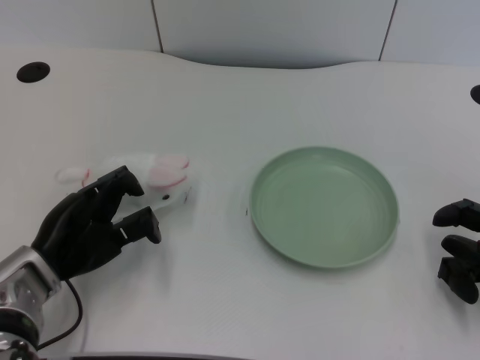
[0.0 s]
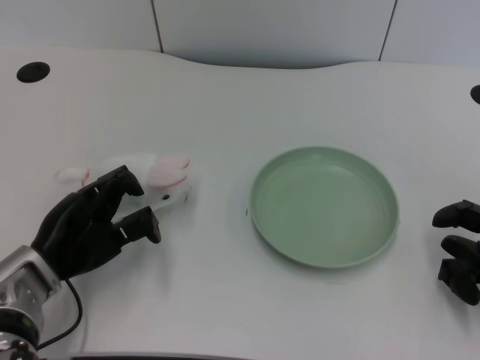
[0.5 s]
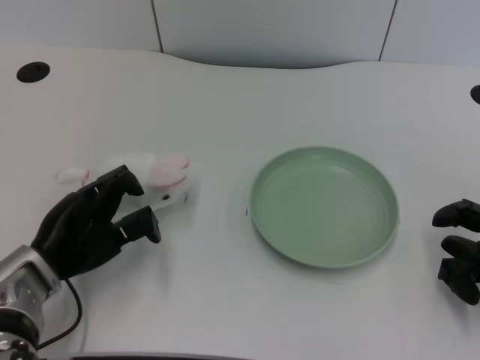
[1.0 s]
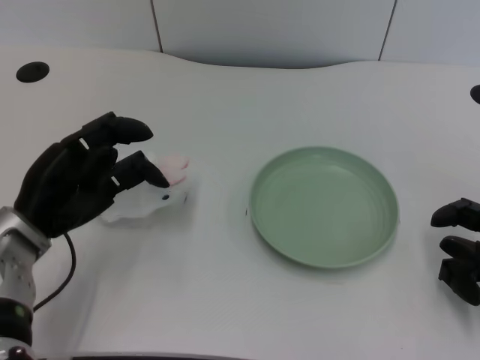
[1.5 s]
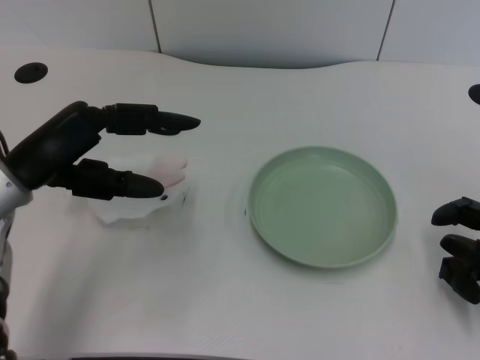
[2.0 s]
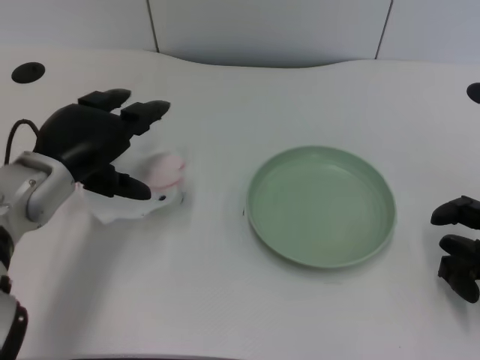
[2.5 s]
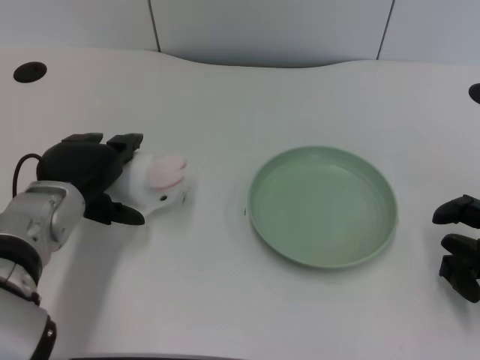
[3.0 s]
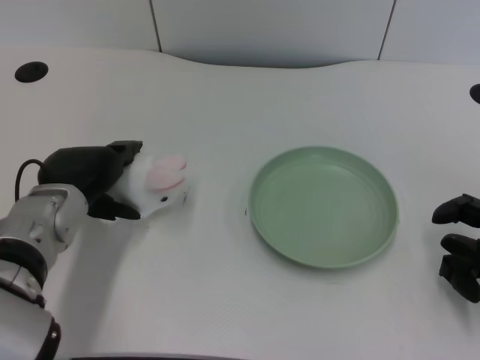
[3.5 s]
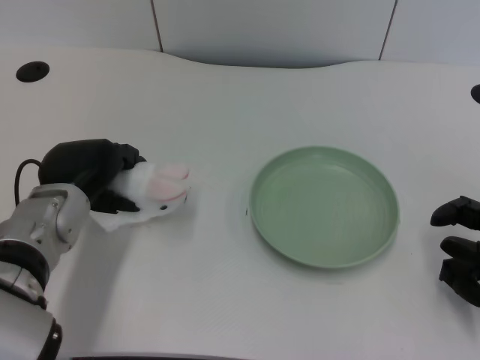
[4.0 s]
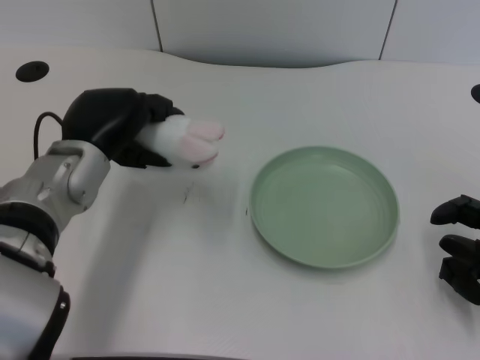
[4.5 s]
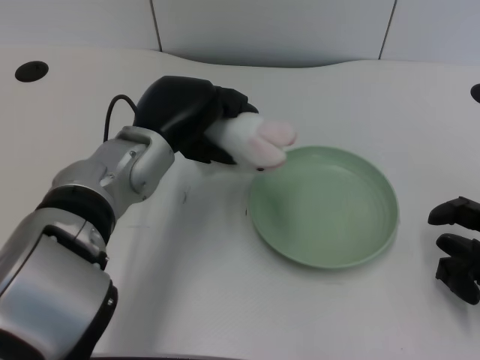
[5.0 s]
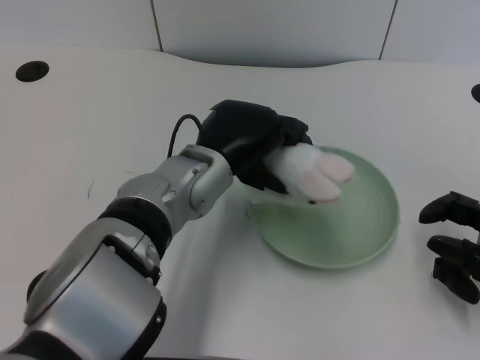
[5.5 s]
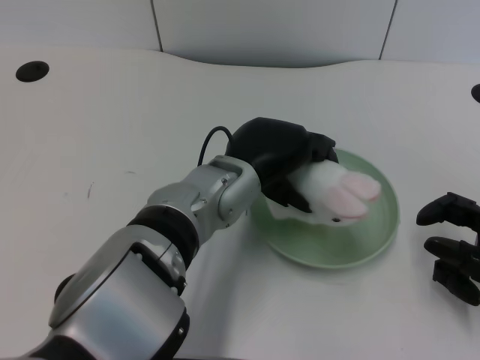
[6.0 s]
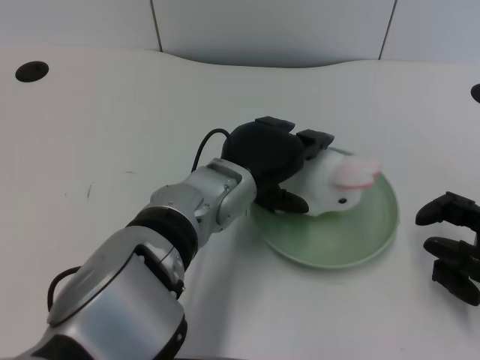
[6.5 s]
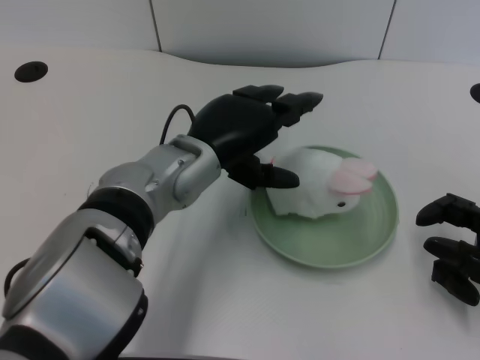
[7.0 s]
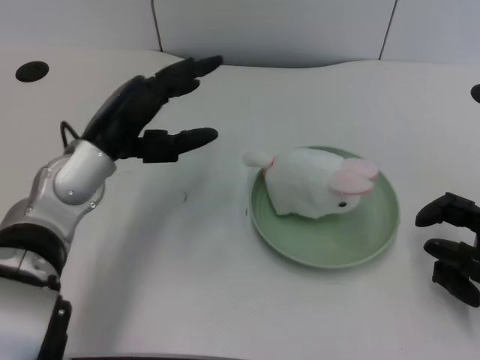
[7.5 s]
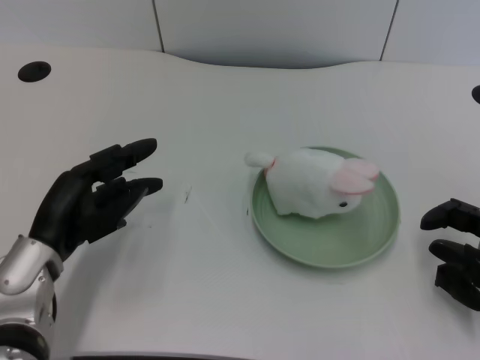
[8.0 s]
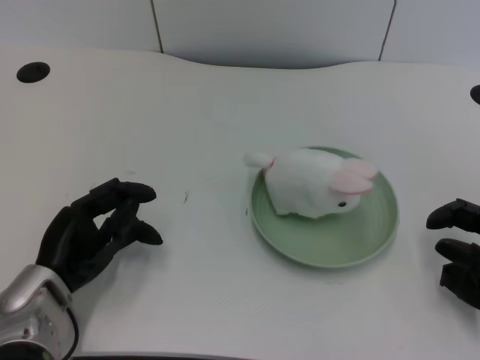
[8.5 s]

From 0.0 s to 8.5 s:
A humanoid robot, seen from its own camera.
Task of the whole recording: pick up the rabbit doll from the table and place it on the plate.
Step, from 1.5 s to 4.0 s: Grasp the rabbit doll with the left gripper.
Step, from 4.5 s to 6.5 s: Place the rabbit doll into the plate with the left gripper.
From 2.0 s to 4.0 s: The left hand moves downward, about 5 cm.
From 4.0 s to 6.5 s: The left hand heads to the right, covering roughly 15 cm.
From 6.5 s to 8.5 s: The left hand is displaced to the left and downward by some 20 cm.

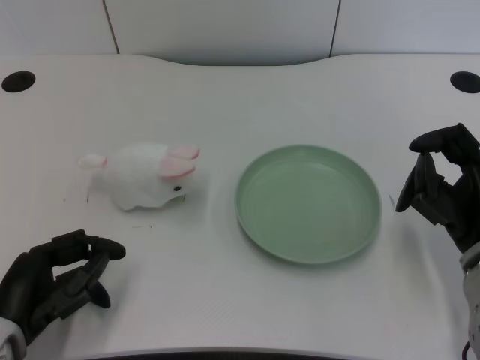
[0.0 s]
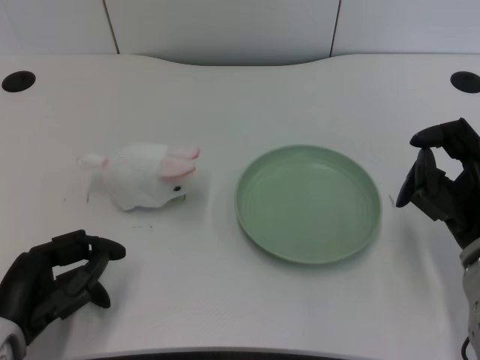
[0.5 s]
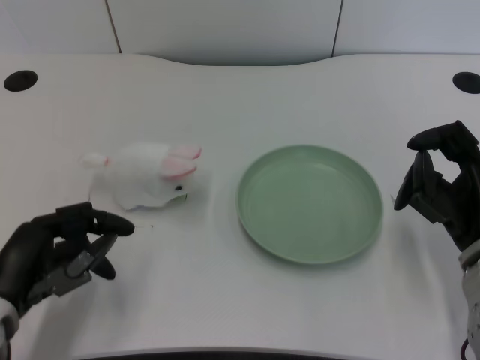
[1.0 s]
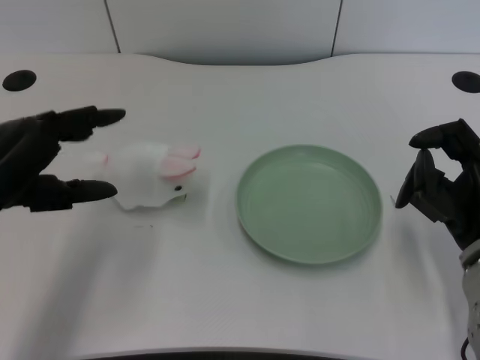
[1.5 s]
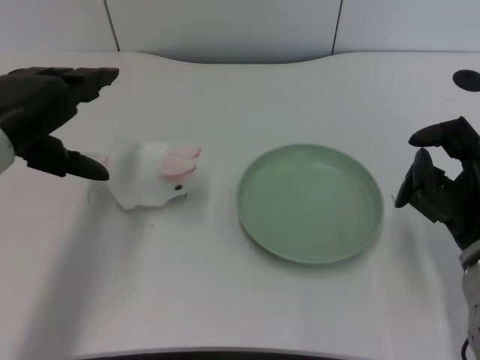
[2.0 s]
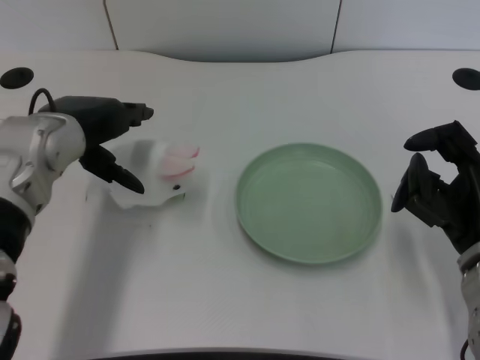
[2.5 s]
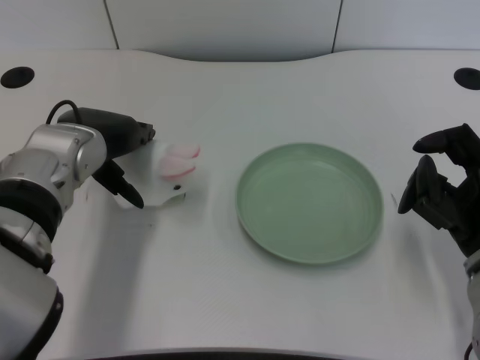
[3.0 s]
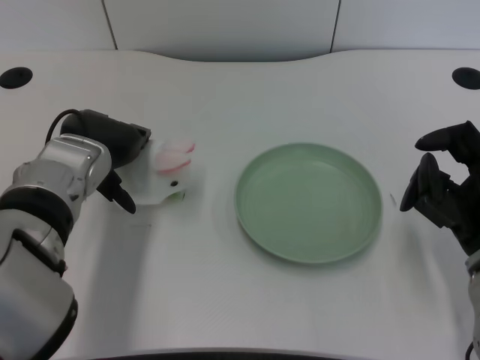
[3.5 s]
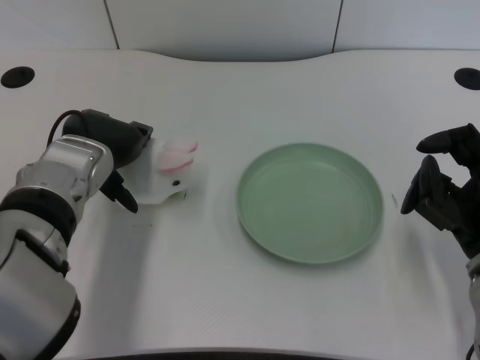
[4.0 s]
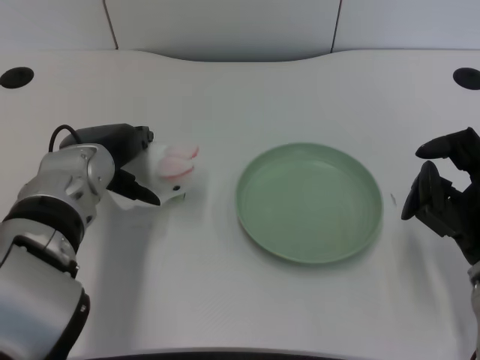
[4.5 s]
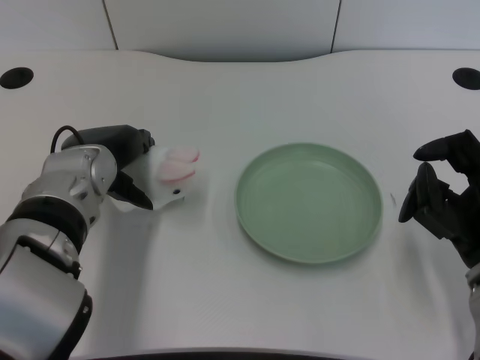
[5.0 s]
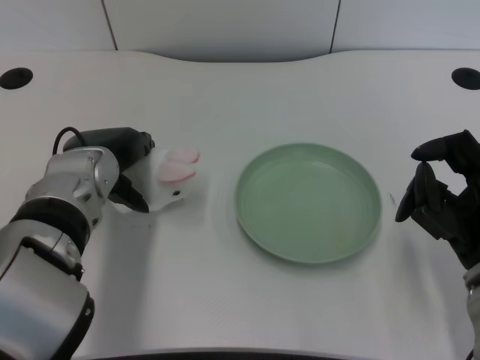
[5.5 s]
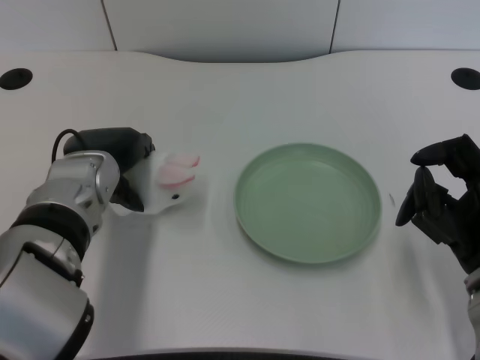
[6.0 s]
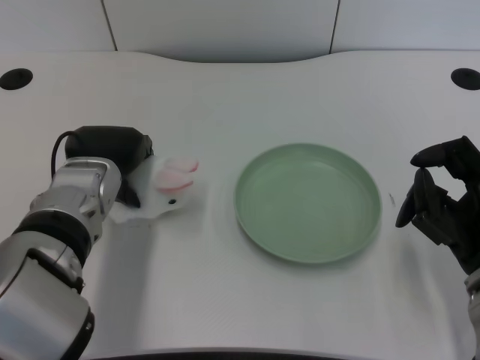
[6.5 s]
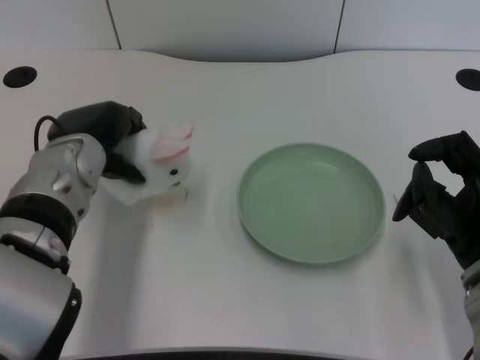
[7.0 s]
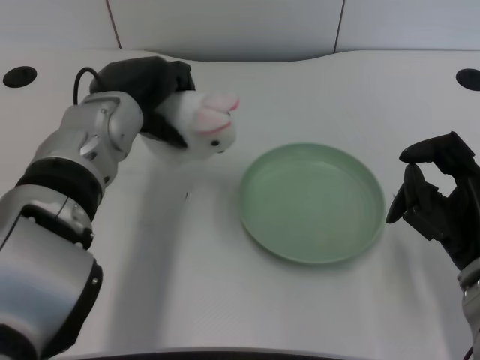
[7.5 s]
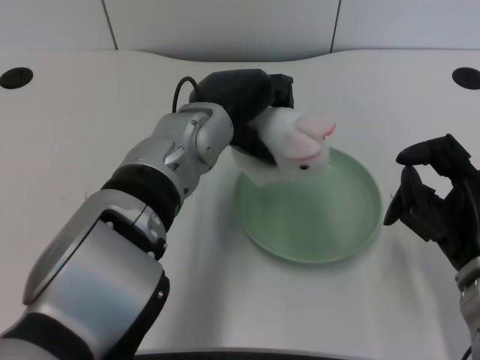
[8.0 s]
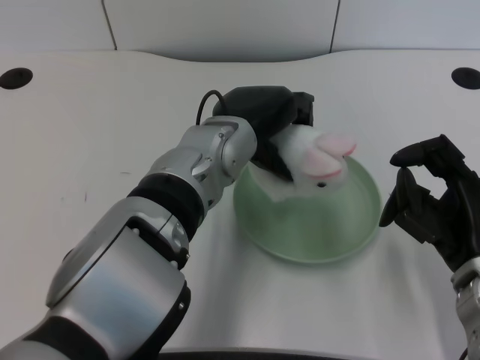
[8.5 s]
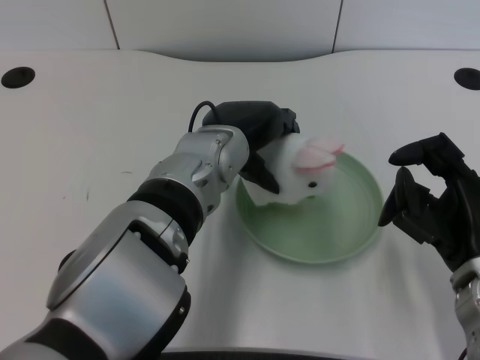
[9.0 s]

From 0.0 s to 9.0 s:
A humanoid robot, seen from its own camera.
Task of the whole recording: pick up the rabbit doll from the table and place it on the plate.
Step, from 1.0 s to 6.5 s: Grasp the rabbit doll with the left gripper.
From 2.0 s to 4.5 s: The left hand moves downward and to the right, approximately 10 cm.
From 4.5 s to 7.0 s: The hands stay close to where they were, moving slightly.
From 7.0 s to 9.0 s: The left hand shifts approximately 15 cm to the right.

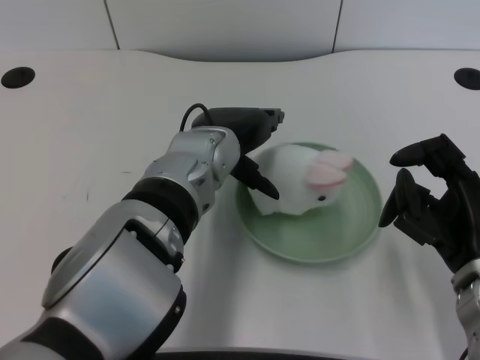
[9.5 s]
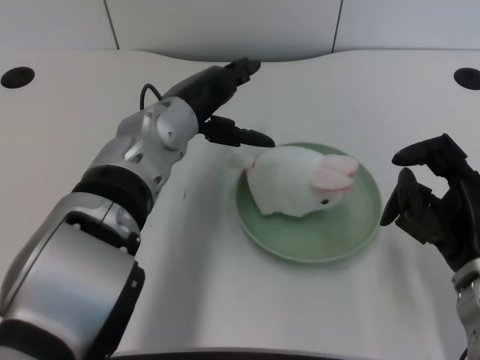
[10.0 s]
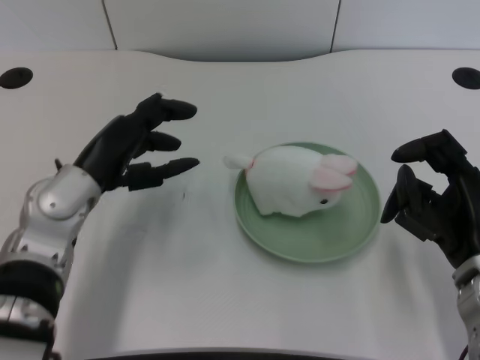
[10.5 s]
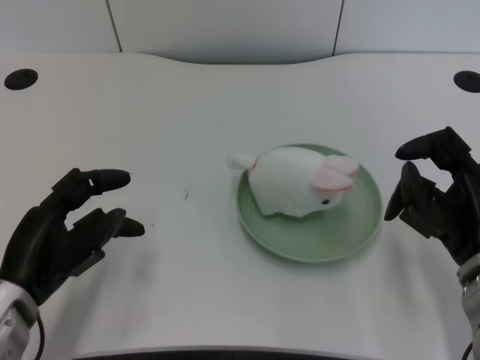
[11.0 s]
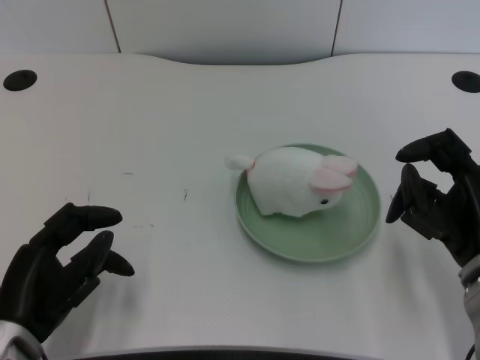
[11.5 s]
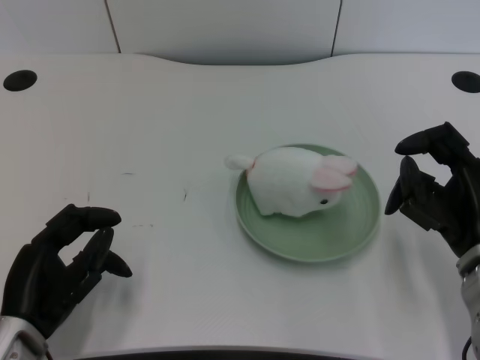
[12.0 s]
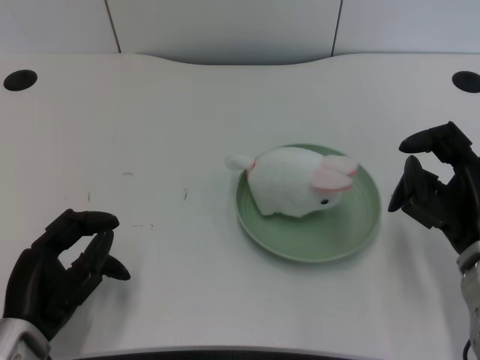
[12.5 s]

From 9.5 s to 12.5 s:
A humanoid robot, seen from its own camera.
Task of the whole recording: pick up the rabbit doll from the table and place it on the plate.
From 9.5 s to 11.0 s: The left hand shifts roughly 25 cm to the left and backward.
From 11.0 s to 12.5 s: The hands make only small movements.

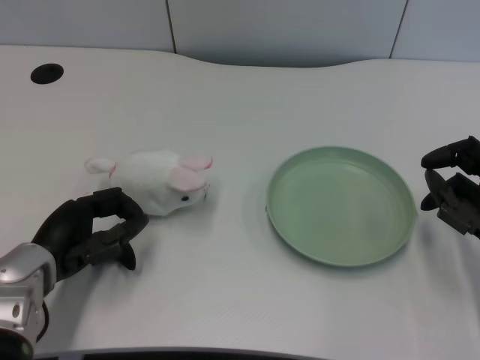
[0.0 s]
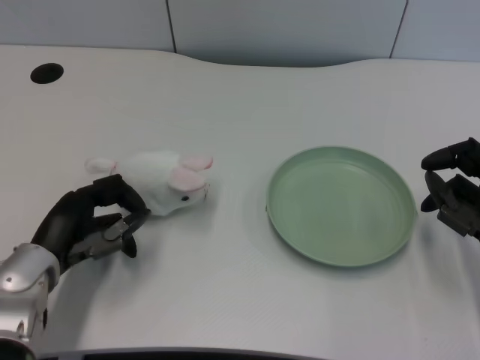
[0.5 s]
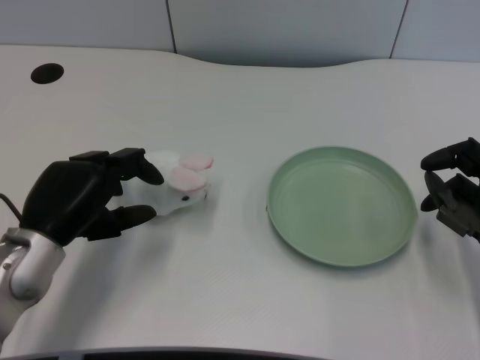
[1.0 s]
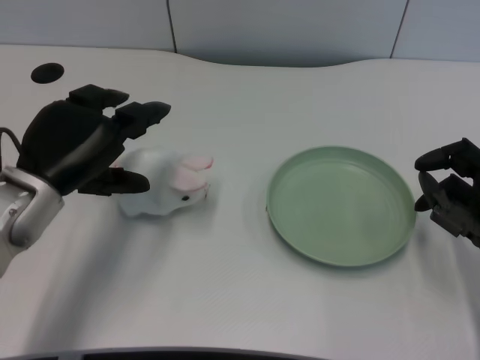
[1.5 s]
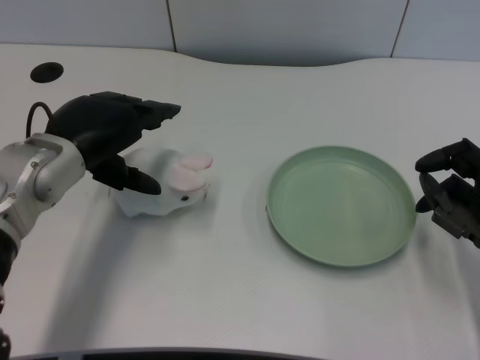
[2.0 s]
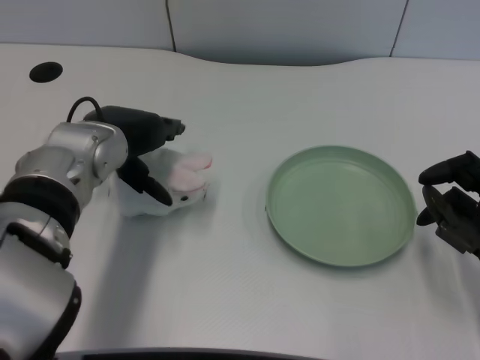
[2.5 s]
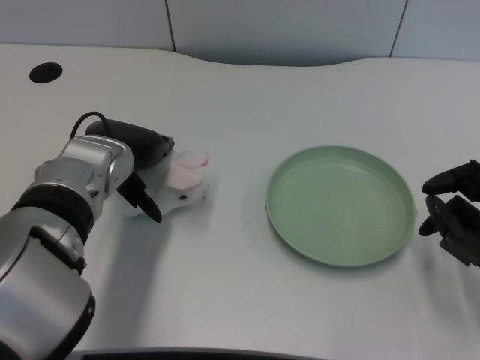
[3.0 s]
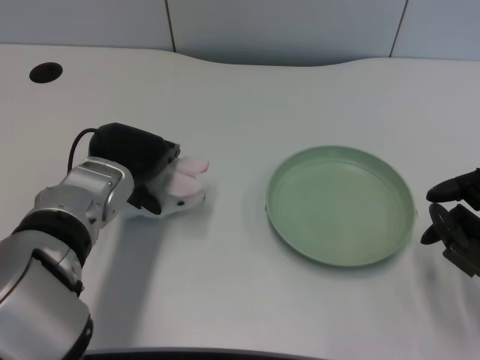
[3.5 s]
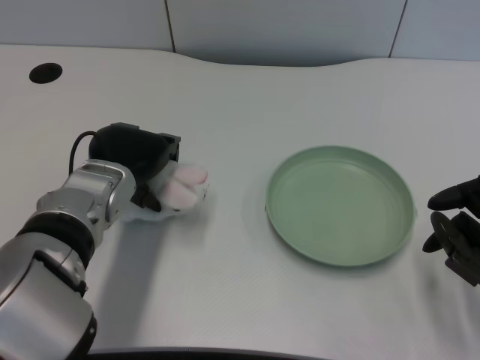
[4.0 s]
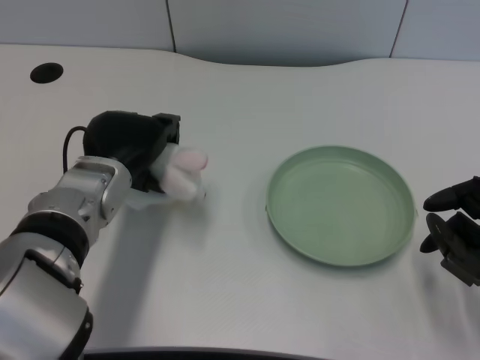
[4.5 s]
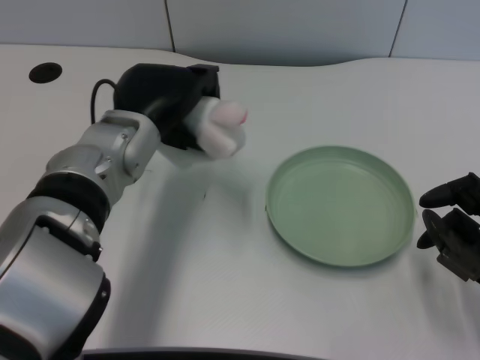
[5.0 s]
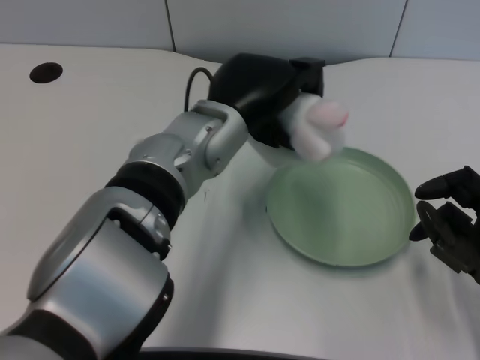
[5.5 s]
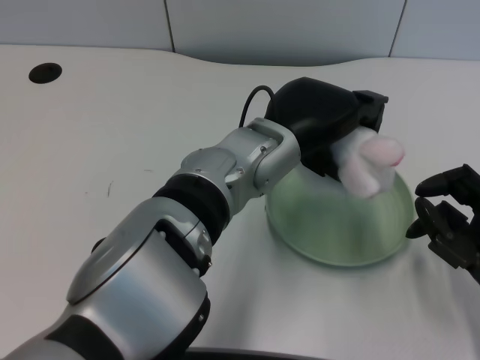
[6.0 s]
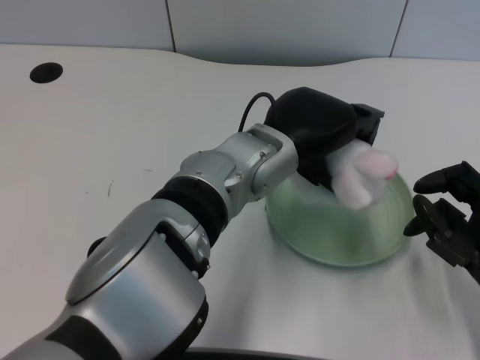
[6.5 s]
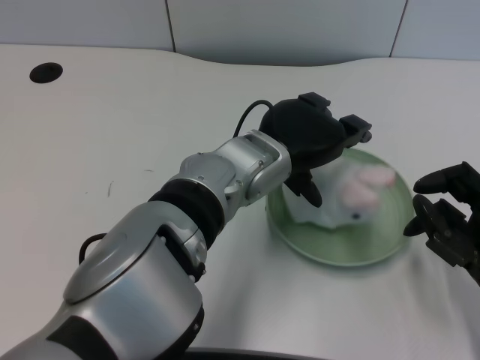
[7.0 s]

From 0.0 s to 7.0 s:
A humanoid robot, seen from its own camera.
Task of the whole recording: pick up the rabbit doll from the table and place it on the plate.
Step, from 1.0 s to 4.0 s: Grasp the rabbit doll with the left gripper.
From 2.0 s to 3.5 s: The left hand shifts by roughly 5 cm.
From 3.5 s to 5.0 s: The left hand shifts by roughly 5 cm.
From 5.0 s to 7.0 s: The left hand heads to the right, covering about 10 cm.
